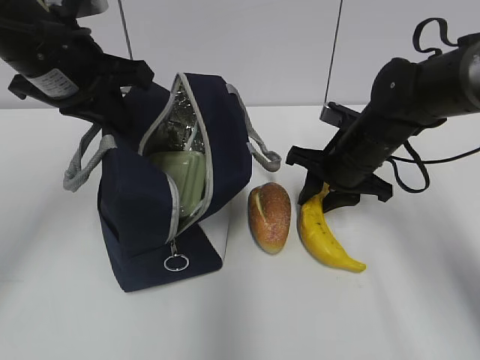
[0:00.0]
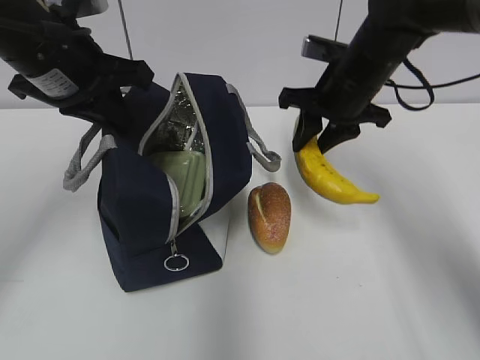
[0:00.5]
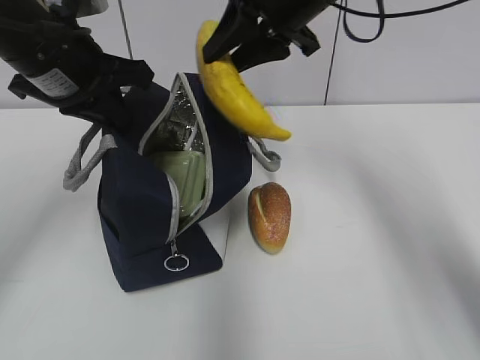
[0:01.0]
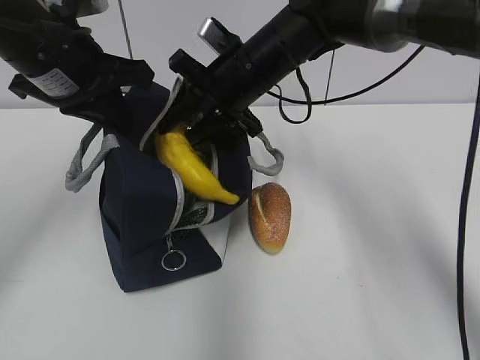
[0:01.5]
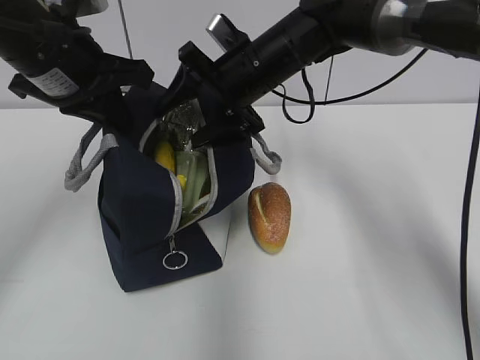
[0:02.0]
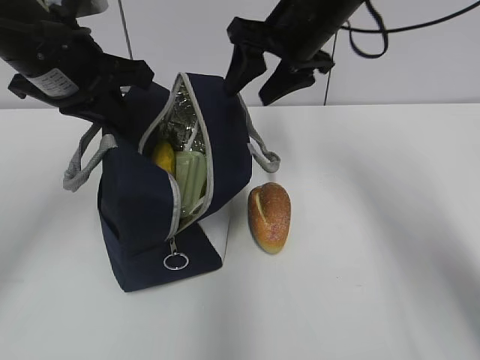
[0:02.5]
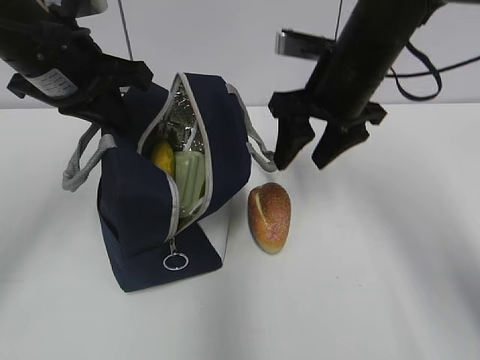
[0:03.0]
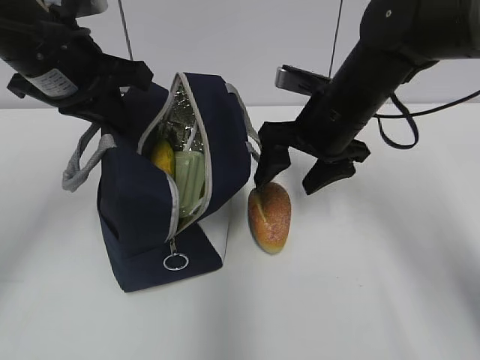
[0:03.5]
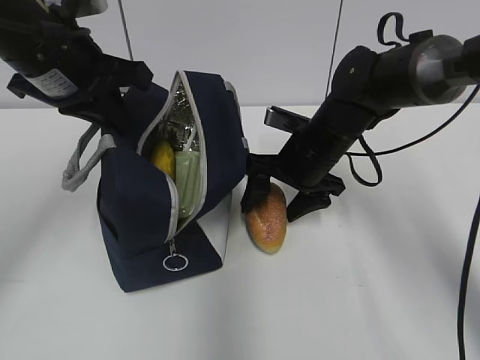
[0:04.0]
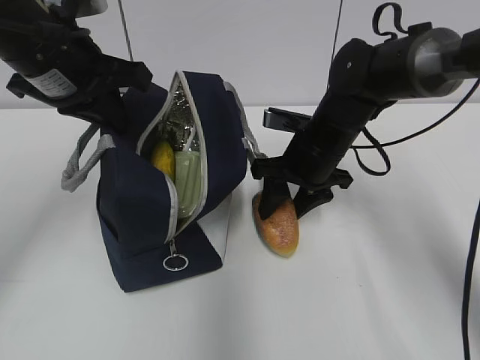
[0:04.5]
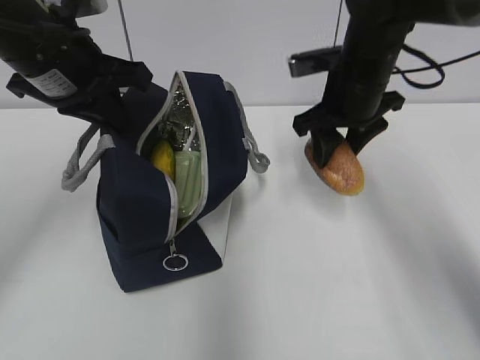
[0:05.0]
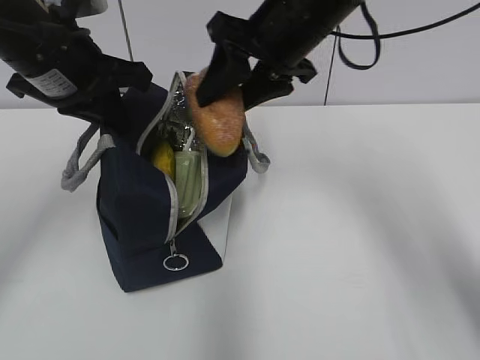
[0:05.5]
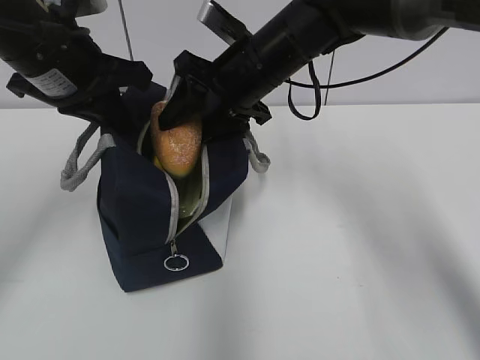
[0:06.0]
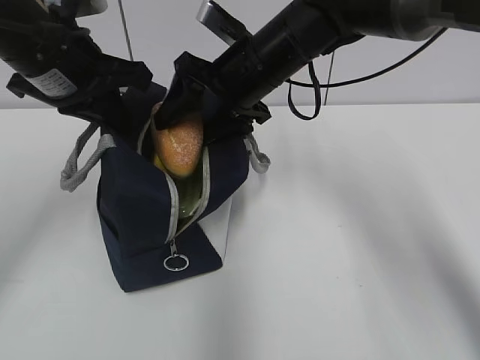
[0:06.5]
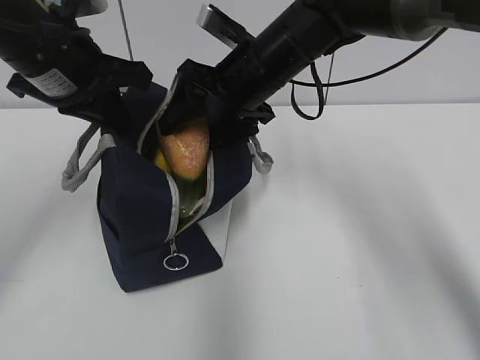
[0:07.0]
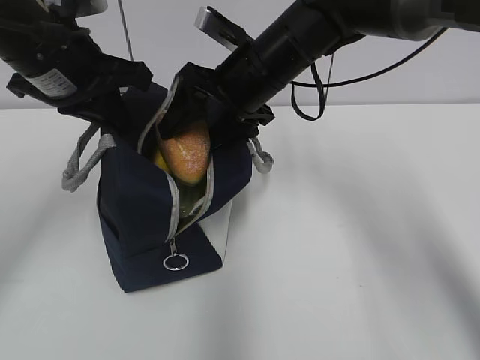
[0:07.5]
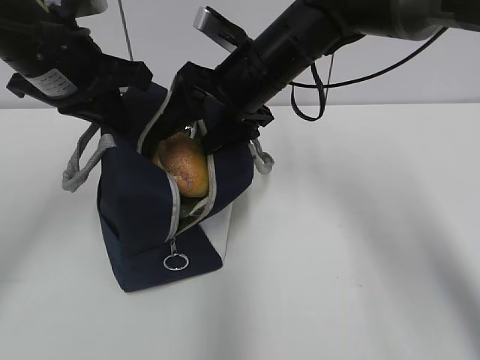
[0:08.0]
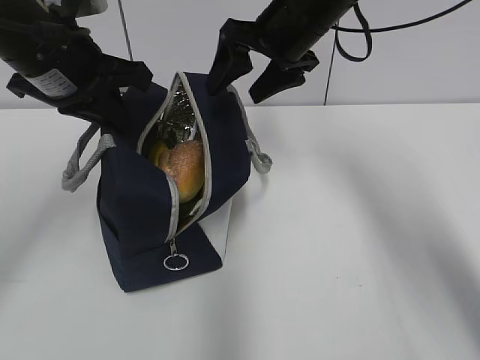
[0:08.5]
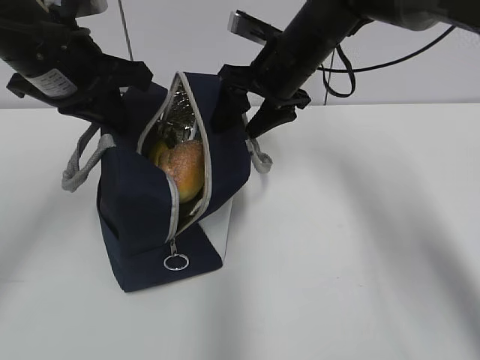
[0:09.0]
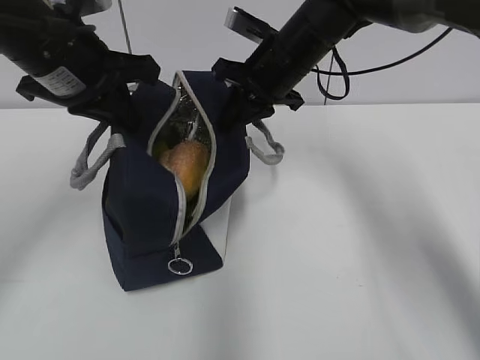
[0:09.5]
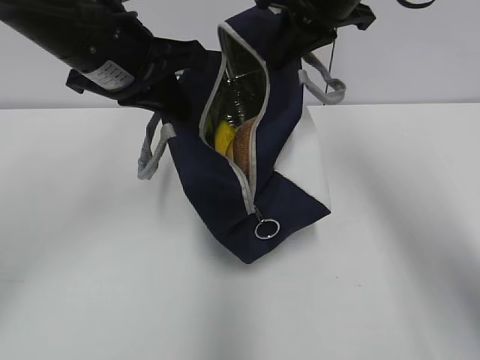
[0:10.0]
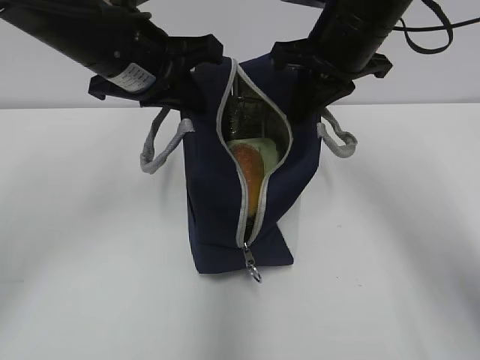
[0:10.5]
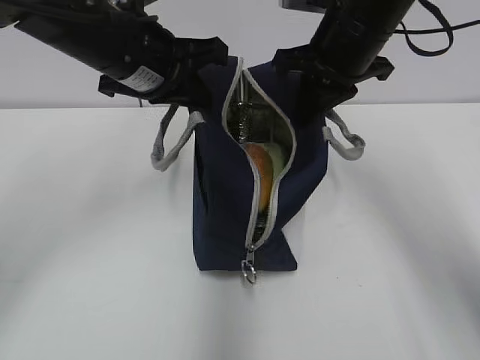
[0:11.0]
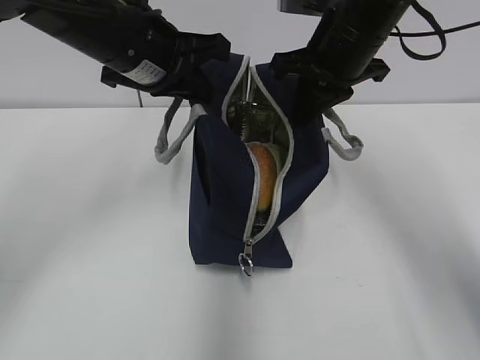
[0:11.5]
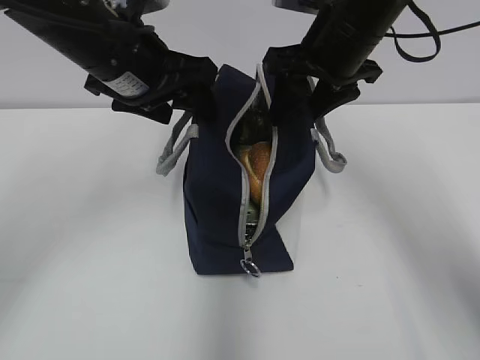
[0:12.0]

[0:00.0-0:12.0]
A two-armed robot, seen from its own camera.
0.0 to 2.0 s: The right gripper heads to the left and upward, covering some 15 cm, and opens its fingers.
2.0 to 4.0 s: The right gripper shifts some 10 cm downward and to the right.
4.0 to 6.0 s: The right gripper shifts approximately 15 cm upward and to the left.
6.0 to 8.0 s: The grippers make only small movements.
8.0 to 10.0 s: The left gripper changes place by roughly 5 cm. Meanwhile the right gripper goes up and down, some 10 cm each way, reversing 2 times, and closes its fingers.
10.0 to 12.0 s: The right gripper is displaced downward by about 5 cm, and opens up, while the left gripper opens its fingers.

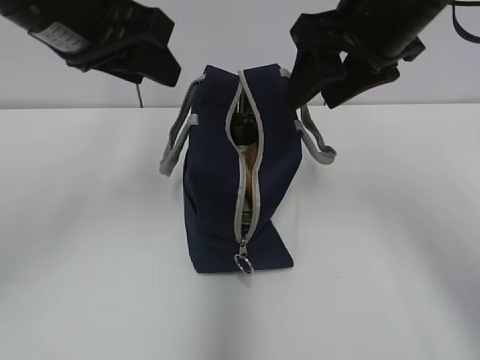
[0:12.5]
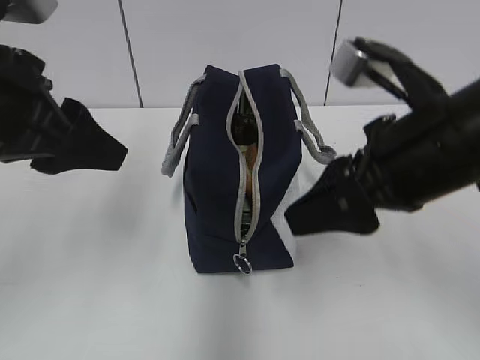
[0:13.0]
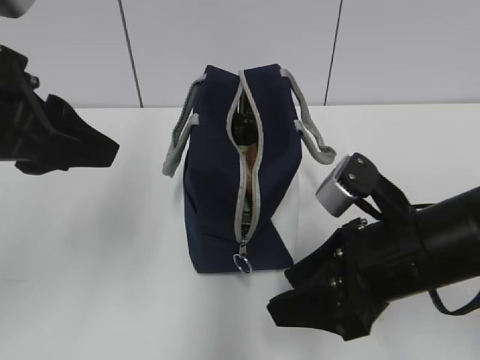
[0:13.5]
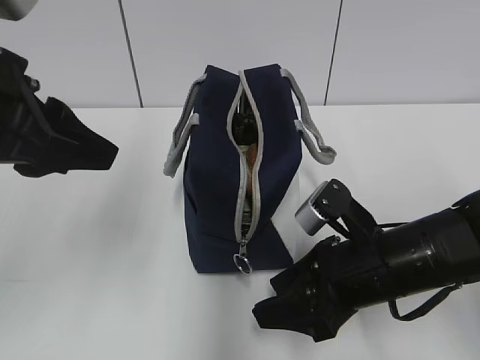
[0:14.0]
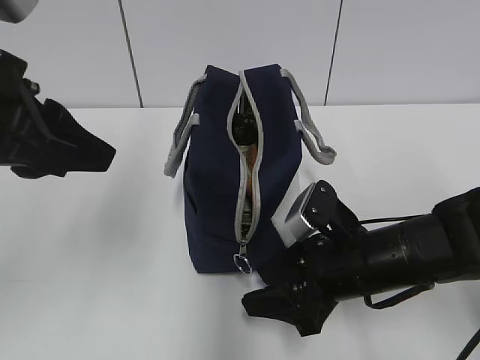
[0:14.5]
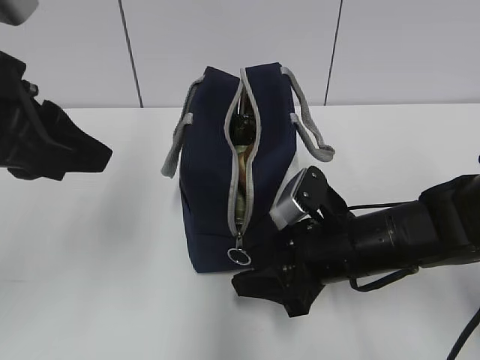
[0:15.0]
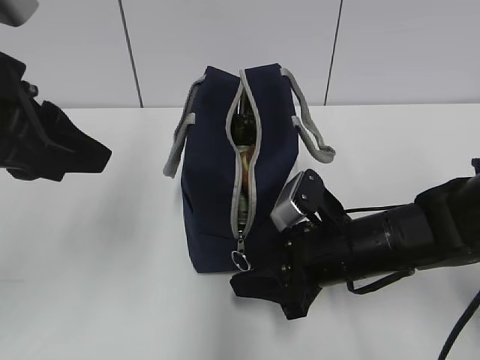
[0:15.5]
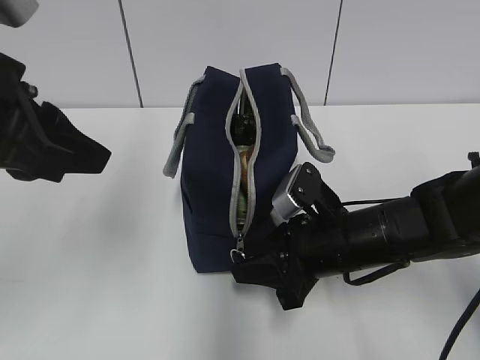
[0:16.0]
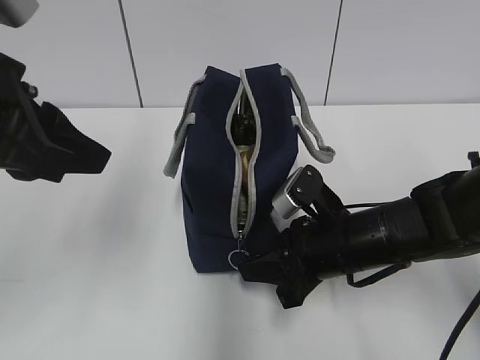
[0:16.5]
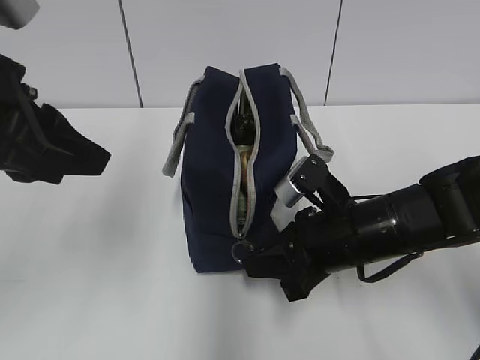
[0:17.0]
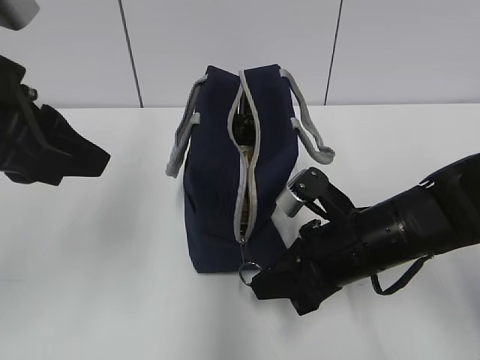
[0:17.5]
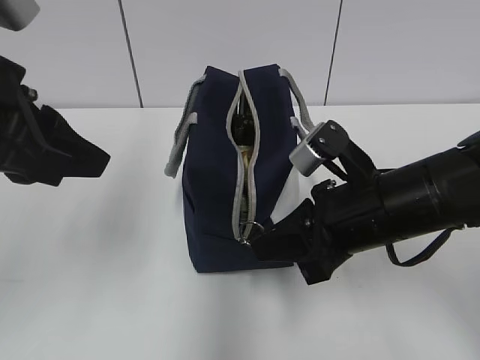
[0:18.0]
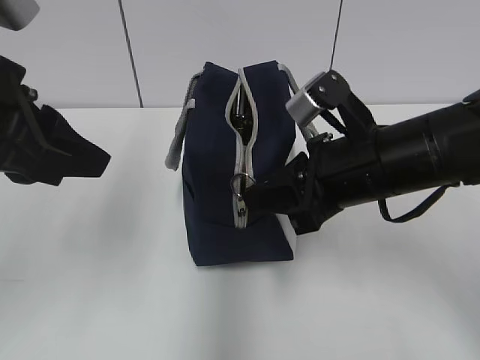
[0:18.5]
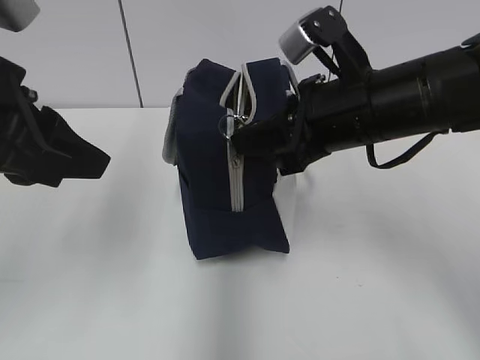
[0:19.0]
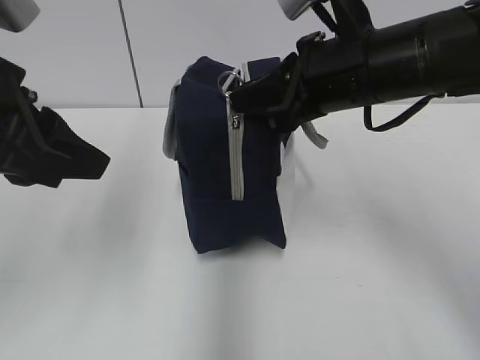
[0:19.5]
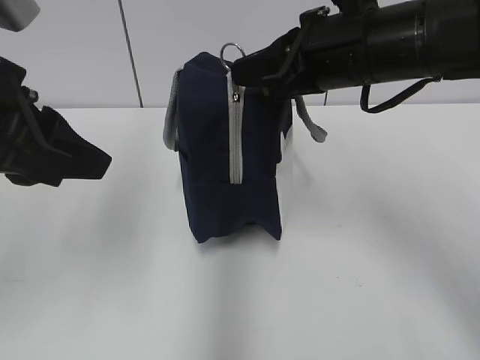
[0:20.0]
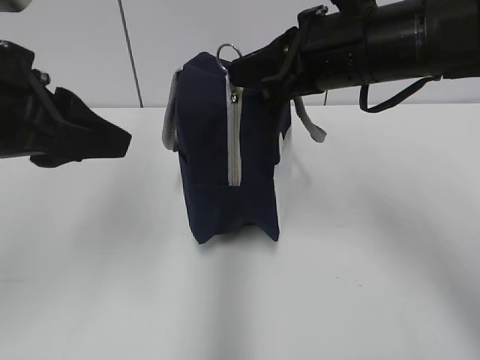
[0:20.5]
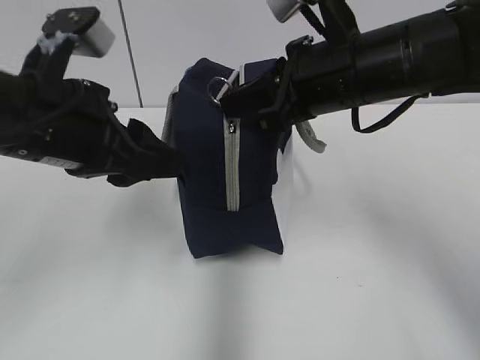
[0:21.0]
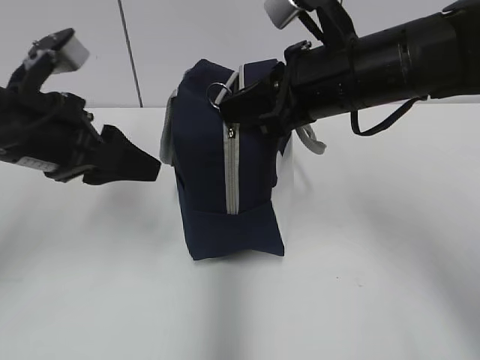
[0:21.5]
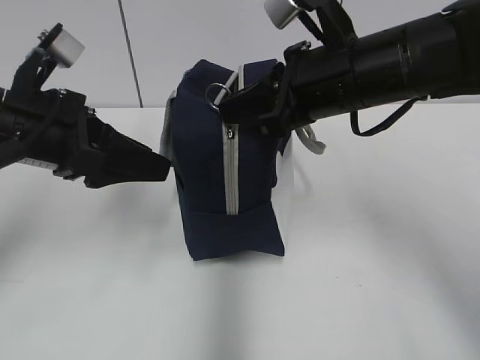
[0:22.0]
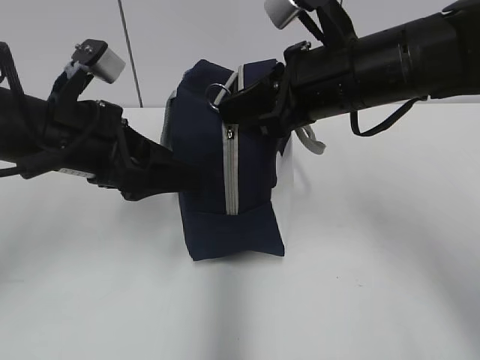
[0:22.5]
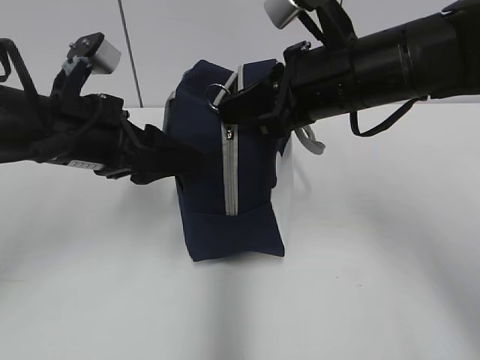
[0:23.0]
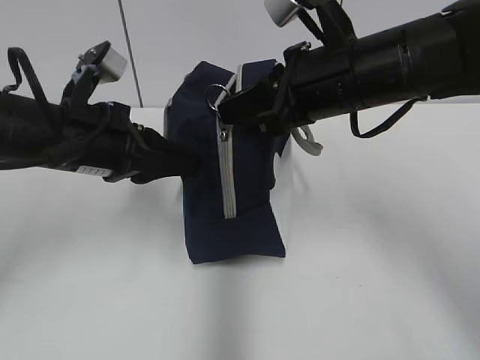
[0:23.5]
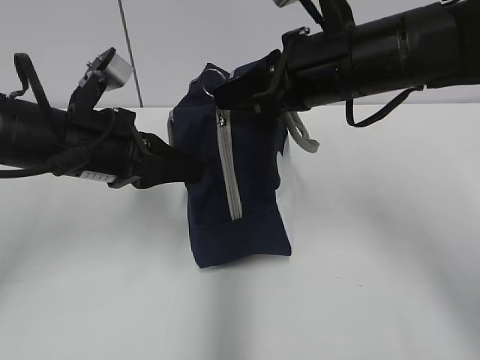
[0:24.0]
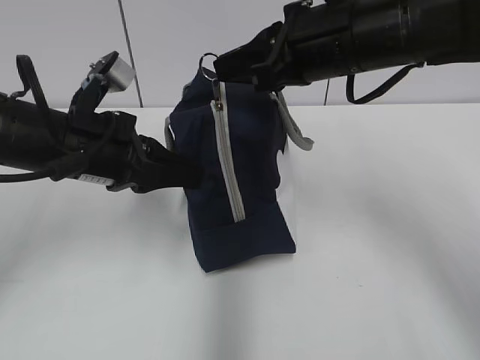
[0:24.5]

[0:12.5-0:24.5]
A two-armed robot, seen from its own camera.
12.5 to 14.5 s: The right gripper is displaced downward by roughly 25 cm; the left gripper is displaced backward by some 10 cm.
14.5 to 16.5 s: The right gripper closes.
16.5 to 18.5 s: The right gripper heads upward, covering roughly 10 cm.
18.5 to 20.5 s: The right gripper moves upward, some 10 cm.
20.5 to 22.5 s: The left gripper goes about 10 cm downward and forward, and opens its fingers.
22.5 to 24.5 s: The left gripper closes up.

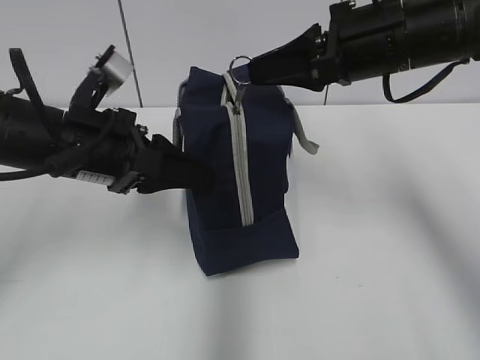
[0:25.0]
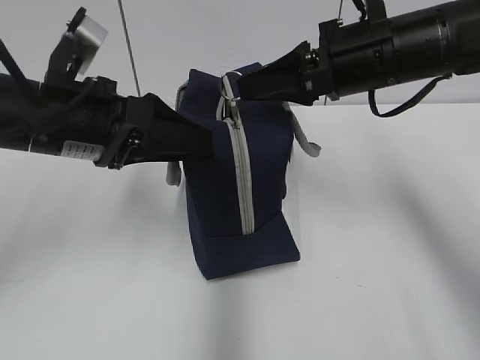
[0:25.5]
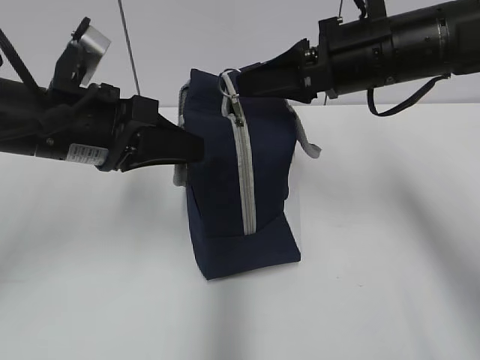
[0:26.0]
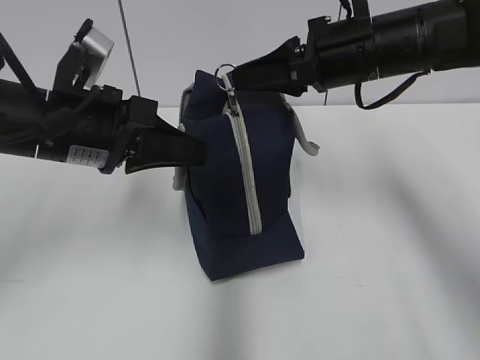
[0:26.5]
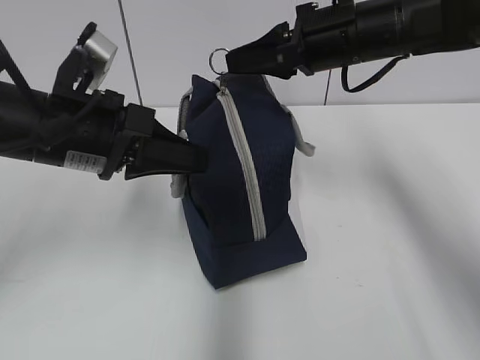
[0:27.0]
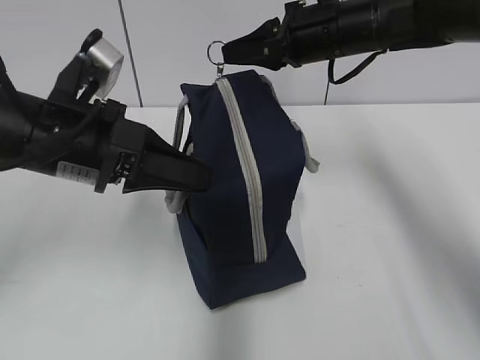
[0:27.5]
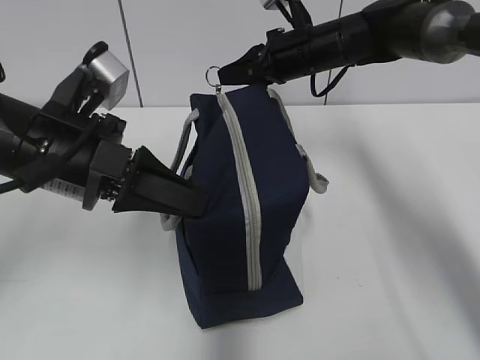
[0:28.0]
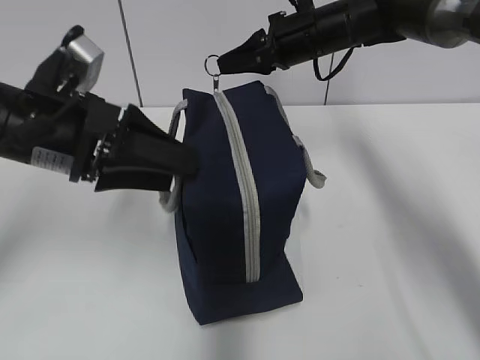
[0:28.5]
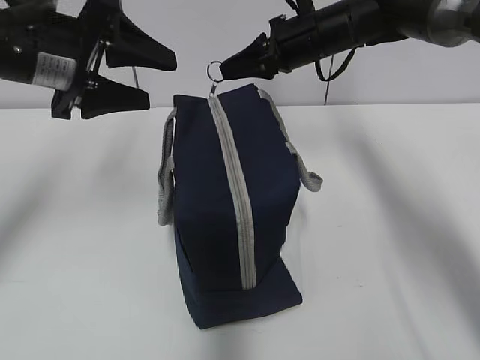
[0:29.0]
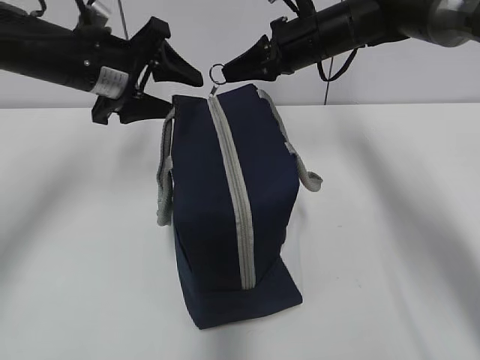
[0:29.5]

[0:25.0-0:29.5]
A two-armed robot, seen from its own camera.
25.0 to 27.0 s: The right gripper heads forward, covering approximately 5 cm, while the left gripper closes its fingers.
27.0 to 29.5 s: Both grippers travel together forward, about 10 cm. The left gripper opens up.
